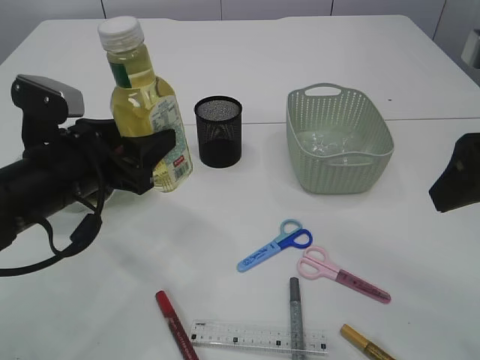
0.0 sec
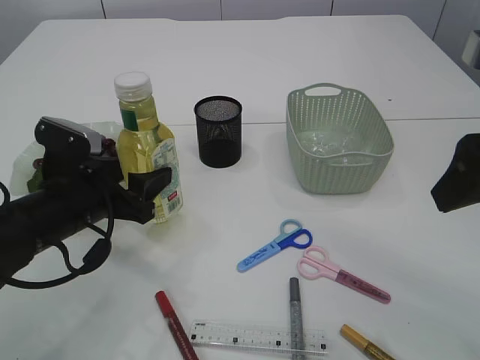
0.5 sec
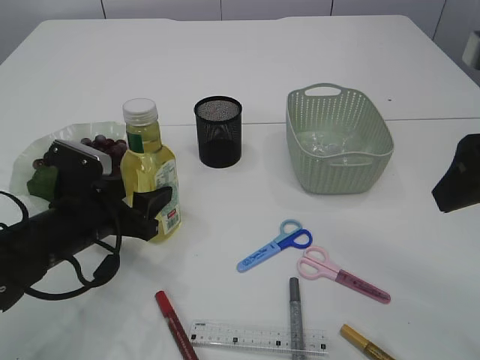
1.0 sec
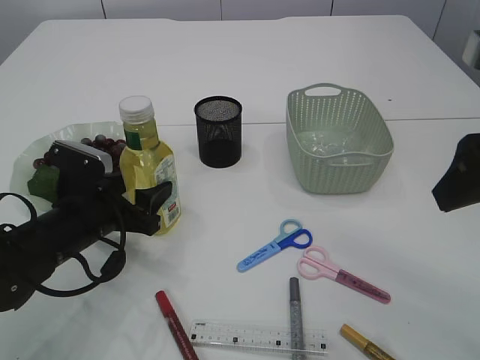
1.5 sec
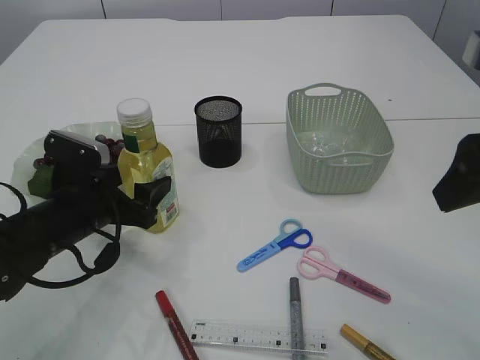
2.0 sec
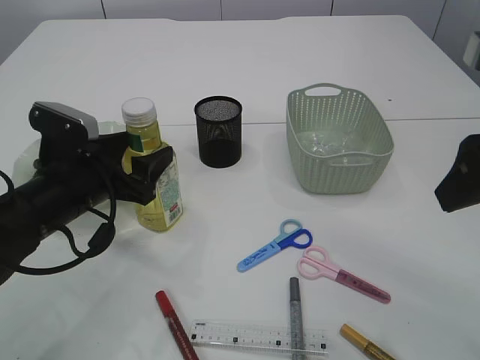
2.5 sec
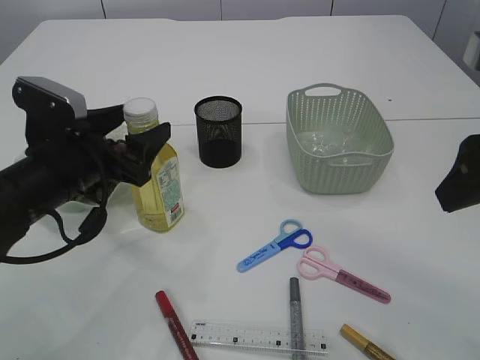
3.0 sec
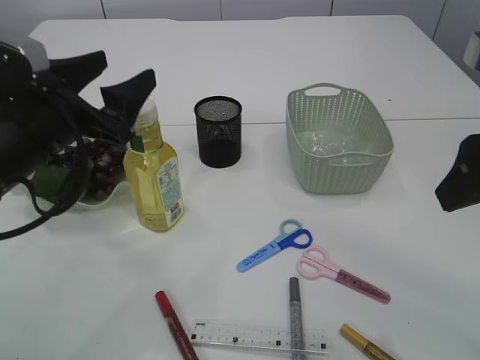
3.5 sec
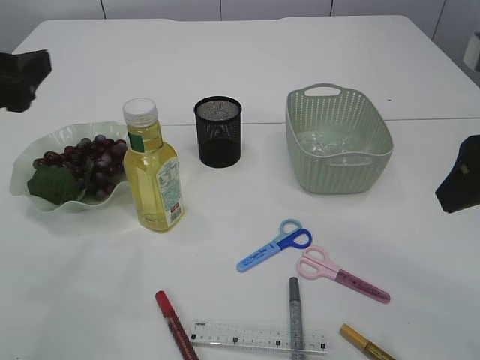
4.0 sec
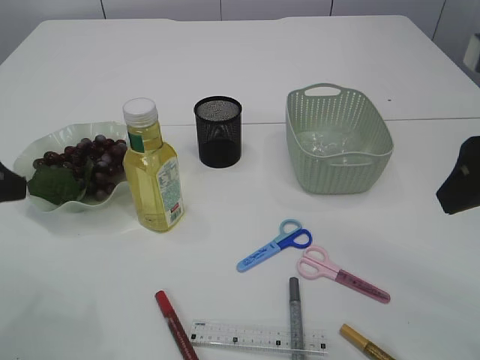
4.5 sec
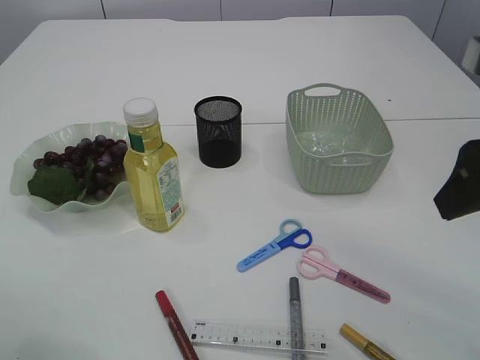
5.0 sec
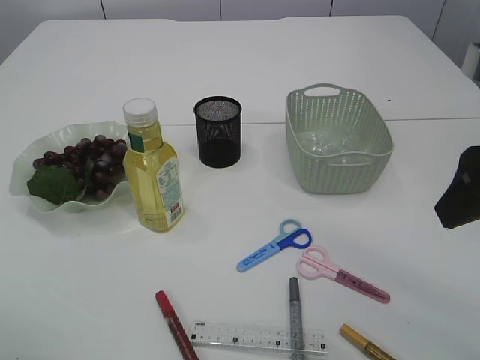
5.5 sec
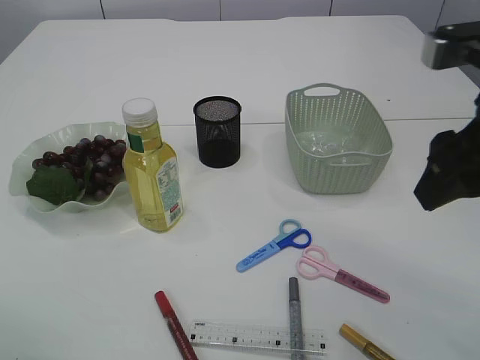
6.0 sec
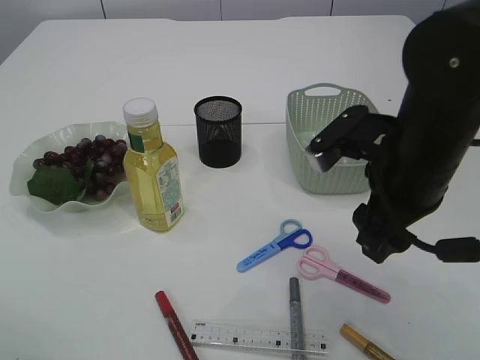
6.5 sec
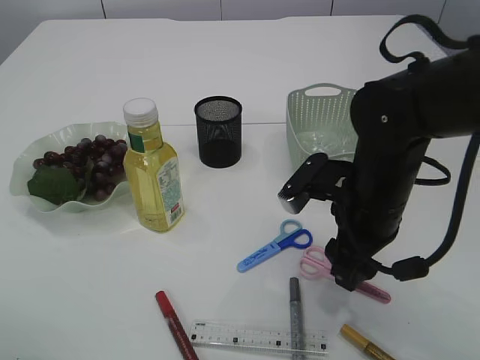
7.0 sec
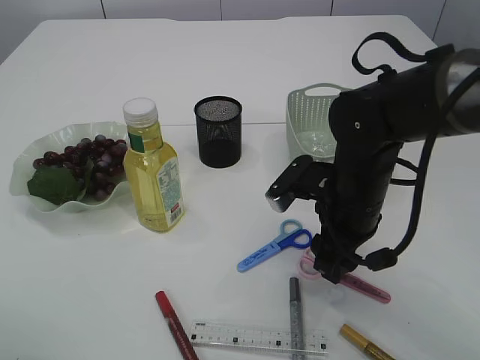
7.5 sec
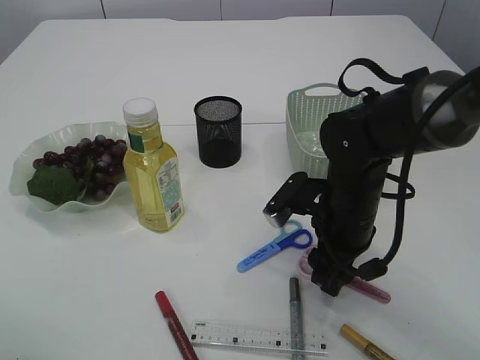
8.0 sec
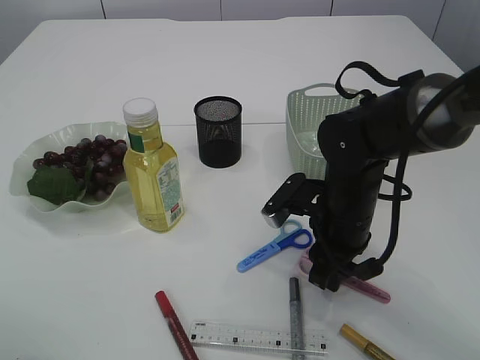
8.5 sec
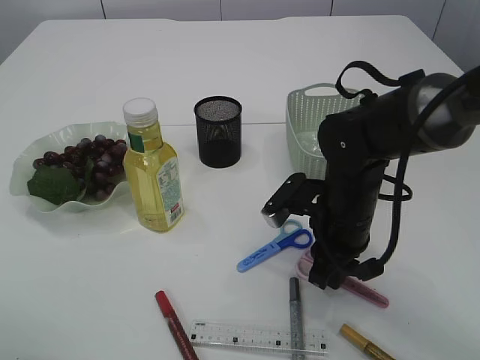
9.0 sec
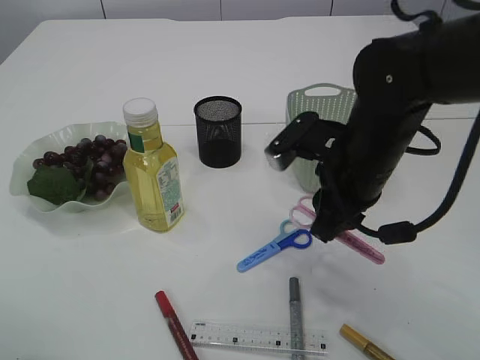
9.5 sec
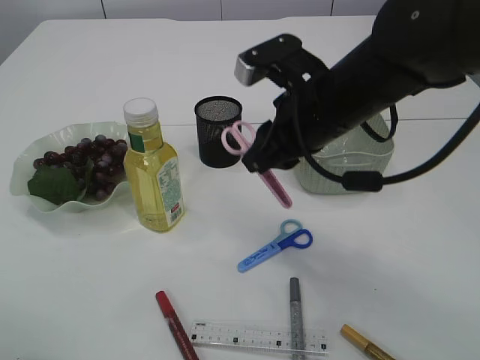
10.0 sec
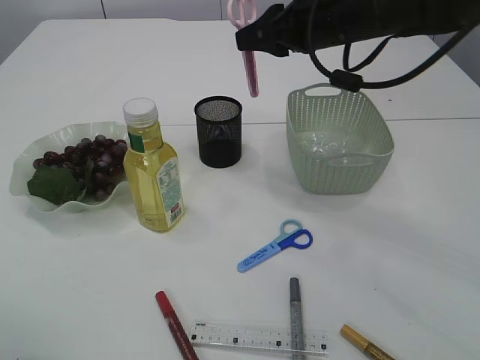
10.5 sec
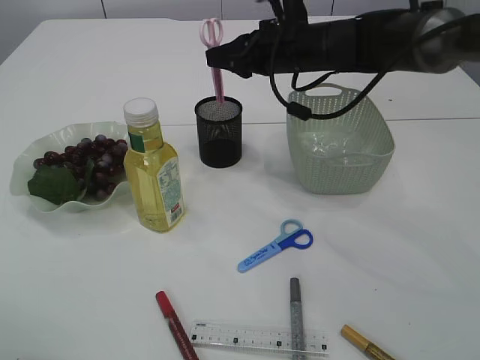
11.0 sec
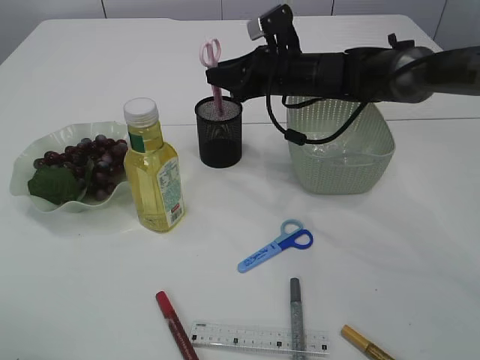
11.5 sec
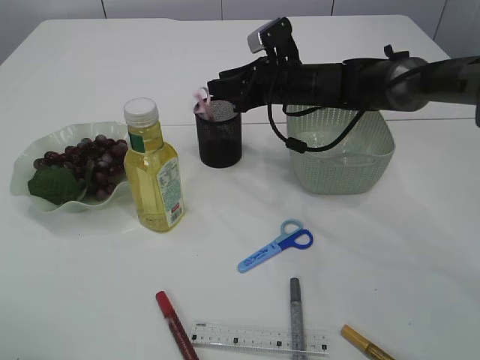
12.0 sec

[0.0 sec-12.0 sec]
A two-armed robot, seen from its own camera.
Step, 0.0 sec to 3.5 sec: Place the bottle.
Step, 4.0 sec to 9.5 sec: pick up the pink scissors.
0.0 sec to 2.0 sec: The left gripper moves downward, approximately 10 cm.
2.0 sec to 4.0 sec: The left gripper moves upward and to the left, roughly 20 cm.
4.0 sec to 6.0 sec: The left gripper moves backward, some 10 cm.
6.0 sec to 8.0 sec: The right gripper travels downward, forward and to the left by about 25 cm.
8.0 sec to 10.0 sec: The right gripper heads upward, covering about 15 cm, and closes.
10.0 sec to 12.0 sec: The right gripper is displaced forward by about 20 cm.

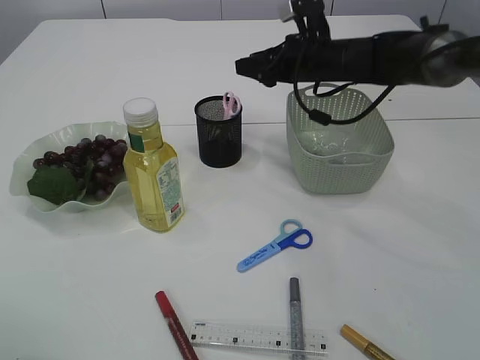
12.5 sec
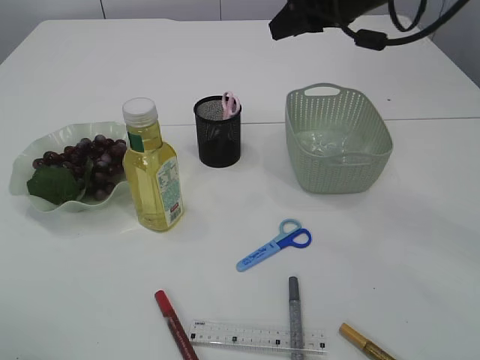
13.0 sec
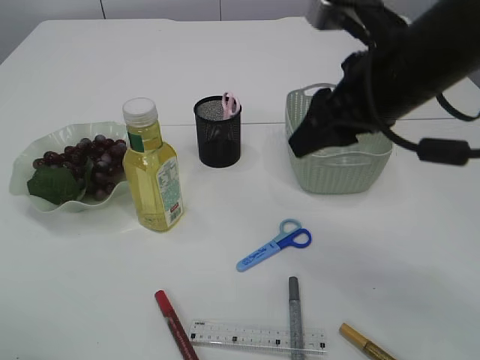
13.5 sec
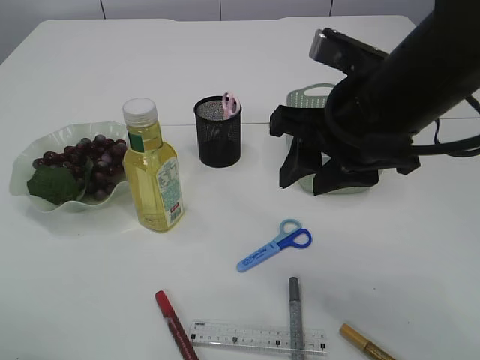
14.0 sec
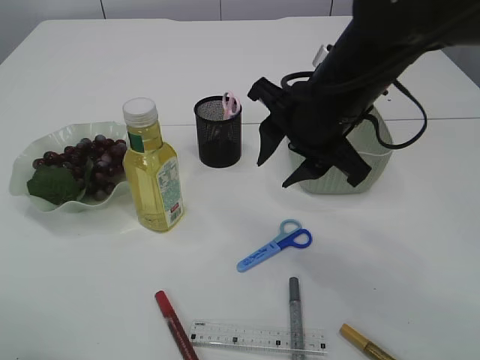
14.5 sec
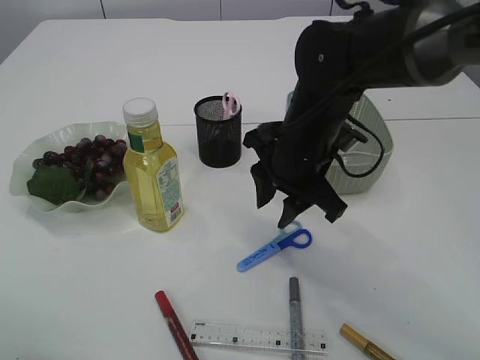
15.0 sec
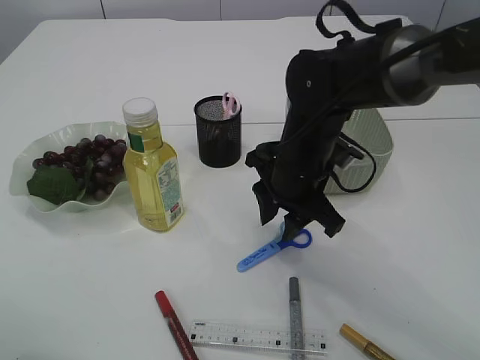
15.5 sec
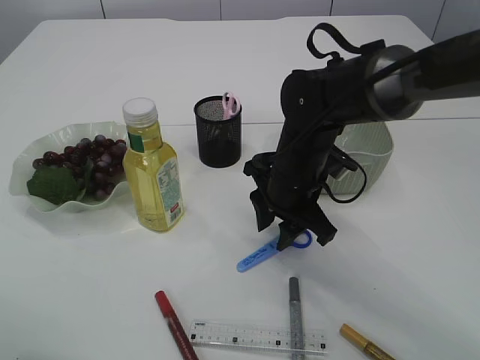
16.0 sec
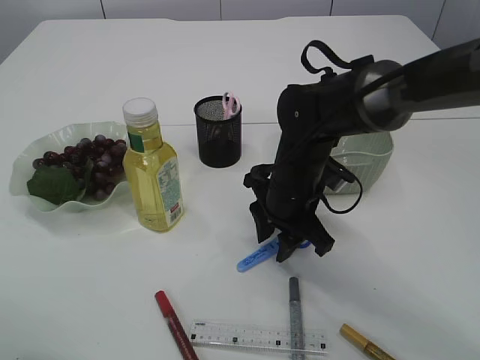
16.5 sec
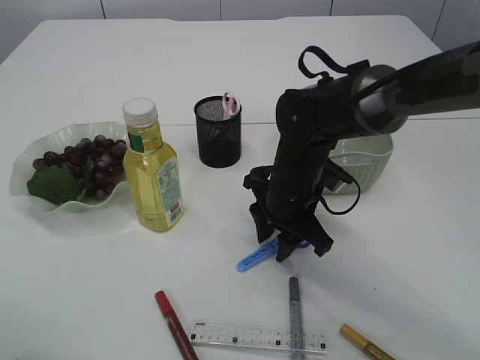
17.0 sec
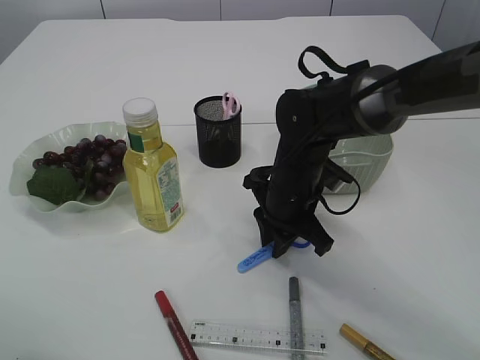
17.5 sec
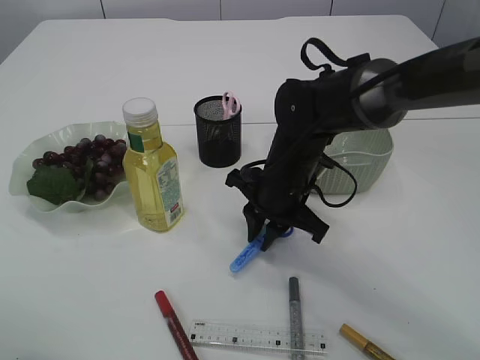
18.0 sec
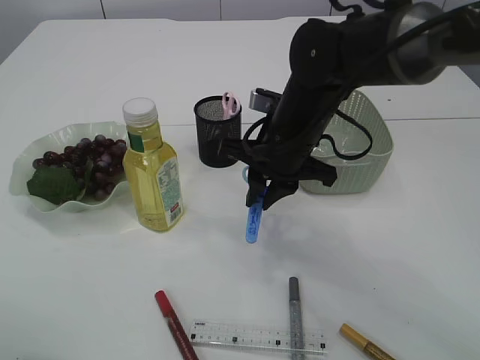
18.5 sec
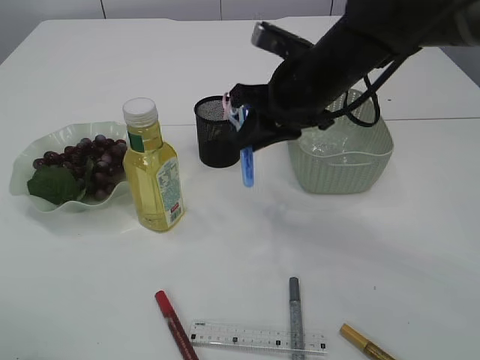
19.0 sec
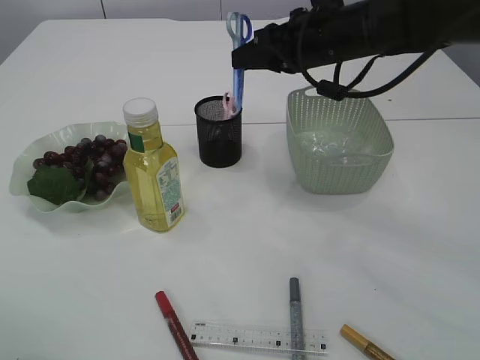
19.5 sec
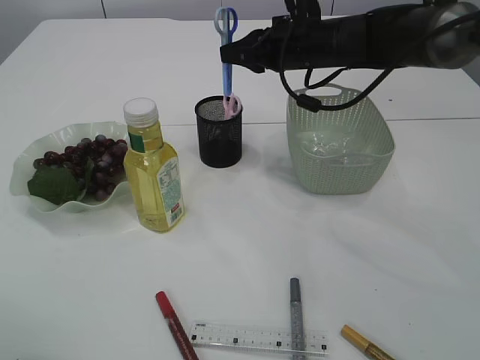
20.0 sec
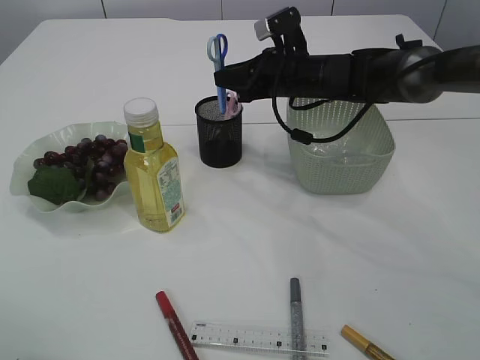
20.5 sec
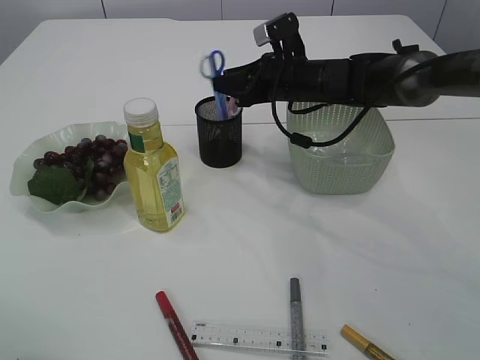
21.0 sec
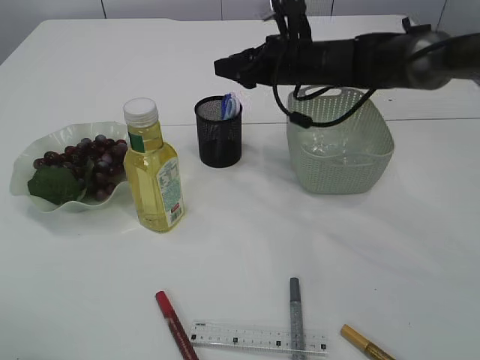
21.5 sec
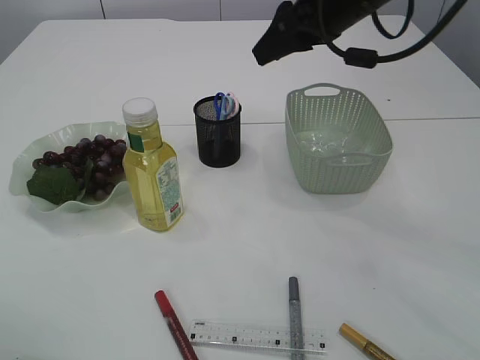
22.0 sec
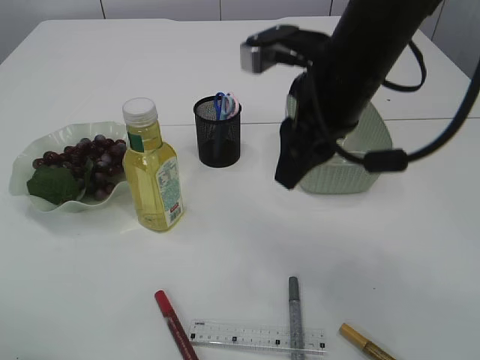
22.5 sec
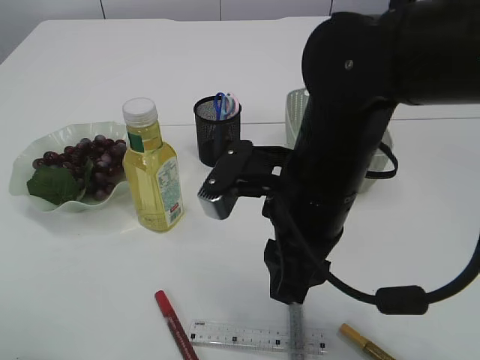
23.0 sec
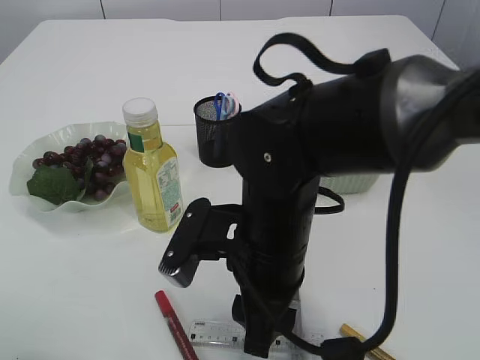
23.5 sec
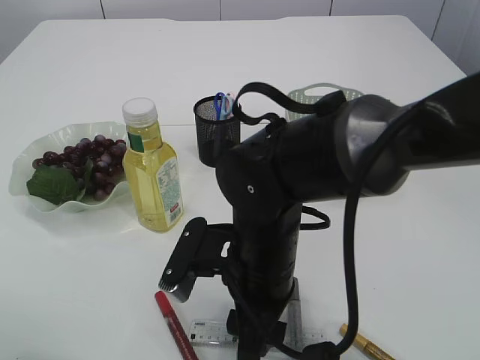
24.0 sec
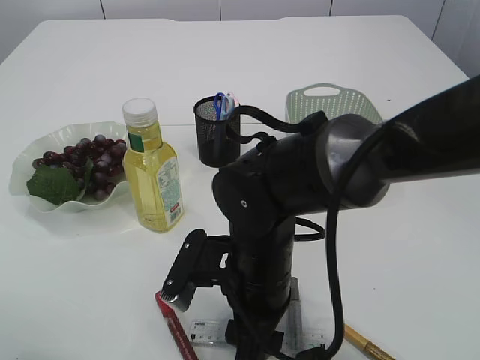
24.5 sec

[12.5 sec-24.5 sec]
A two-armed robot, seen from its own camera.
Step, 13.0 sec to 18.5 sec: pick up the blue scissors.
Step, 19.0 sec to 21.5 sec: Place the blue scissors into the pen holder.
12.5 sec to 14.5 sec: The right gripper is displaced backward by approximately 20 cm.
14.5 sec to 16.5 sec: The right gripper travels downward by approximately 15 cm.
16.5 sec to 18.5 sec: The right gripper is displaced upward by some 5 cm, and closes its fingers.
18.5 sec to 20.5 sec: The right gripper heads forward, covering about 15 cm.
20.5 sec to 22.5 sec: The right gripper heads backward and upward, covering about 20 cm, and opens up.
22.5 sec to 24.5 sec: The right gripper is displaced downward, to the left and backward by some 20 cm.

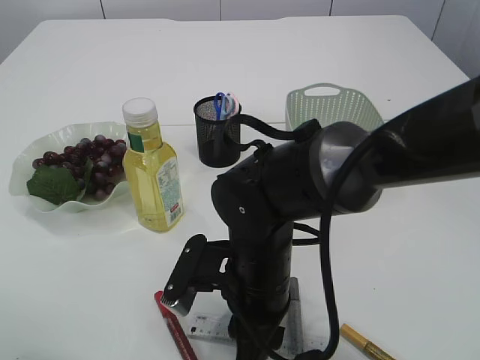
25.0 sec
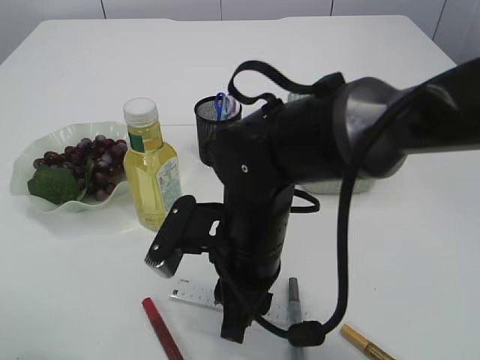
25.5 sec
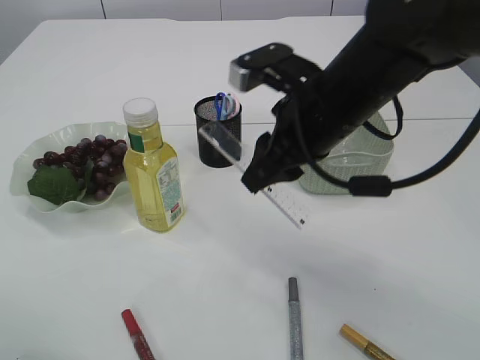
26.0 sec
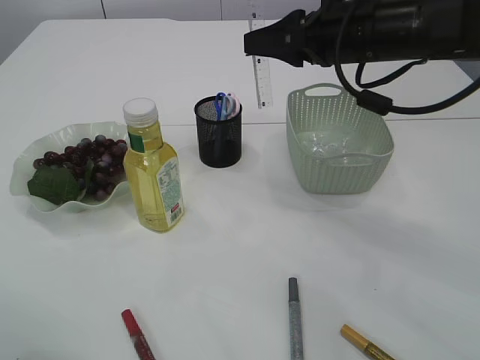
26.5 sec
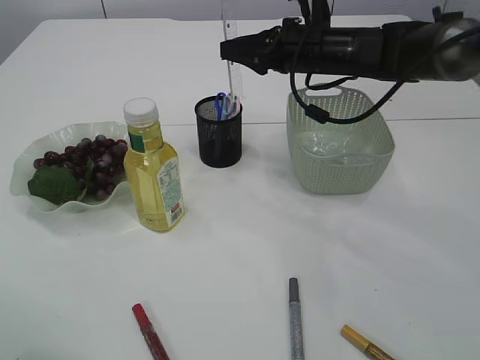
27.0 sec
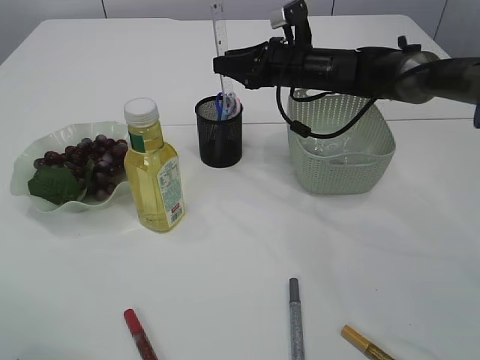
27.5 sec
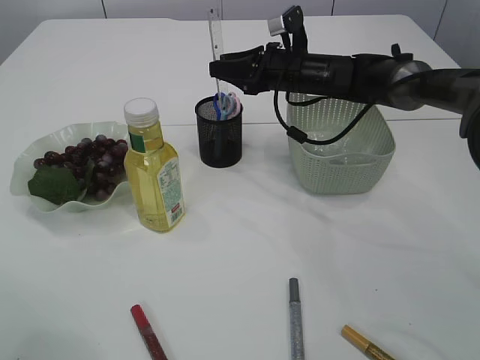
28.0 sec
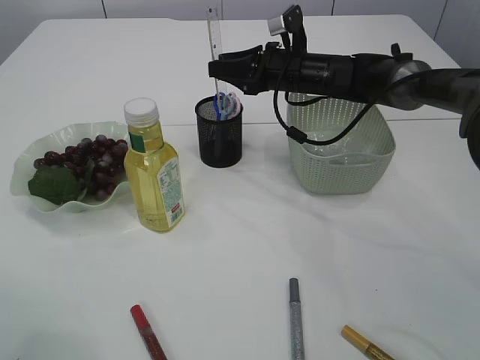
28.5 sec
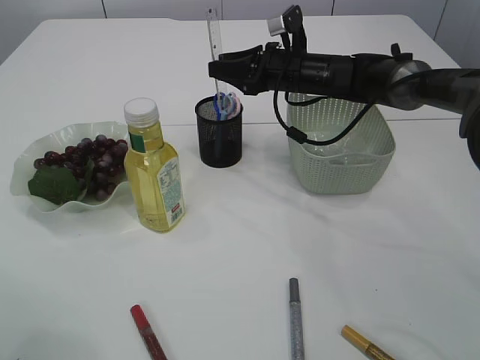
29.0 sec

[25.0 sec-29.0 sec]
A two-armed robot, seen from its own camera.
25.0 sec to 27.0 sec: The right gripper shifts some 30 cm forward, upward and to the right.
27.0 sec to 29.0 sec: The right gripper shifts some 5 cm downward.
